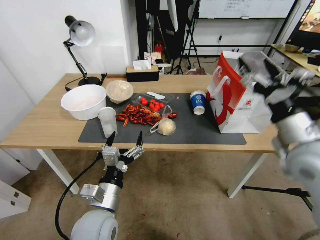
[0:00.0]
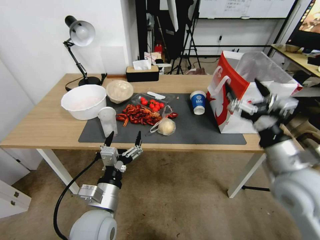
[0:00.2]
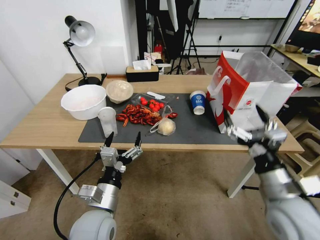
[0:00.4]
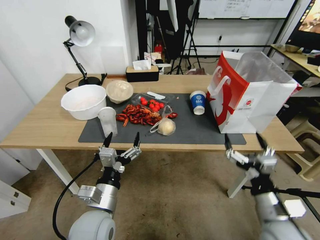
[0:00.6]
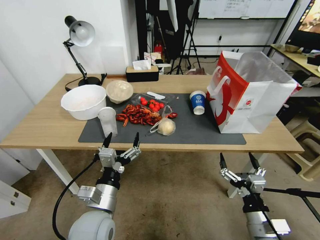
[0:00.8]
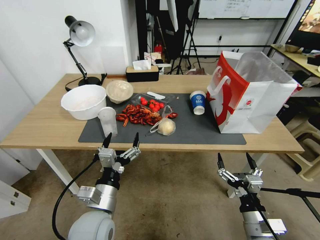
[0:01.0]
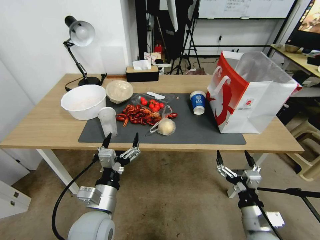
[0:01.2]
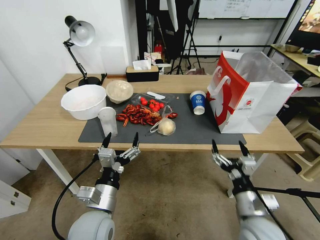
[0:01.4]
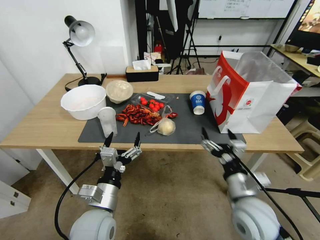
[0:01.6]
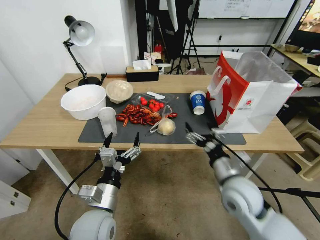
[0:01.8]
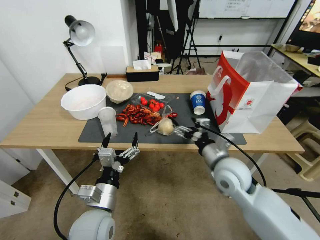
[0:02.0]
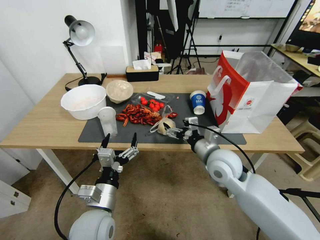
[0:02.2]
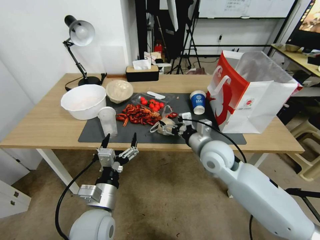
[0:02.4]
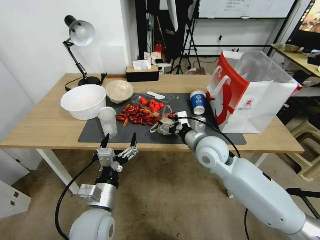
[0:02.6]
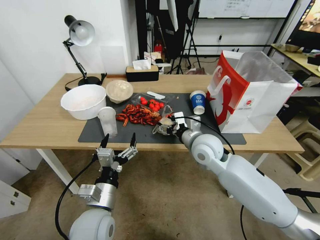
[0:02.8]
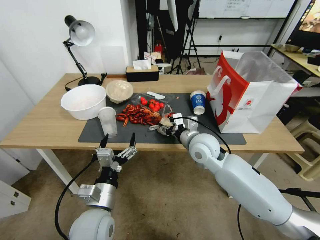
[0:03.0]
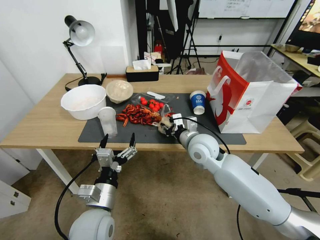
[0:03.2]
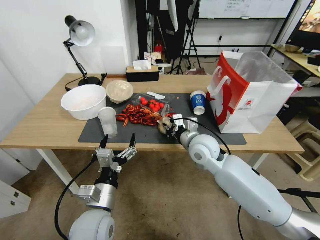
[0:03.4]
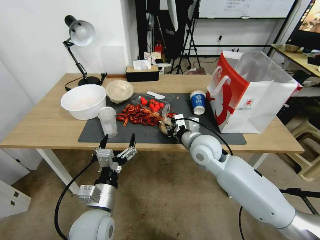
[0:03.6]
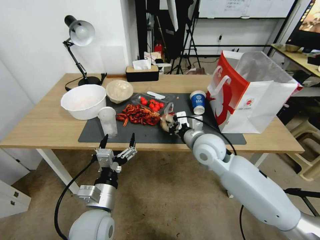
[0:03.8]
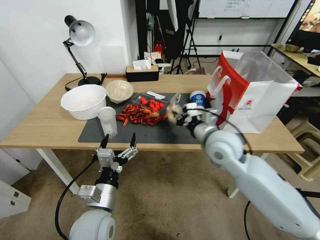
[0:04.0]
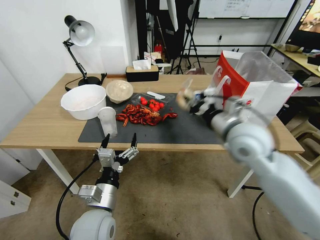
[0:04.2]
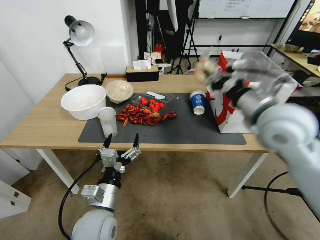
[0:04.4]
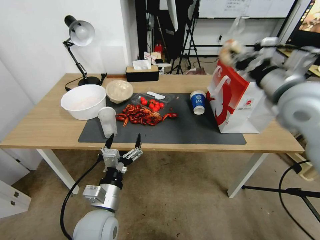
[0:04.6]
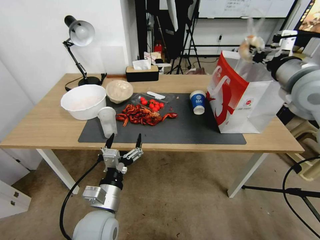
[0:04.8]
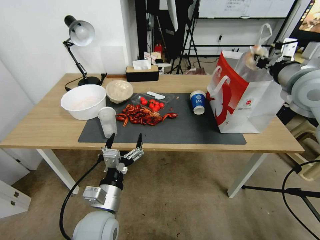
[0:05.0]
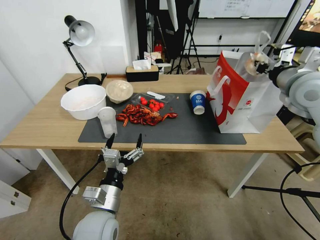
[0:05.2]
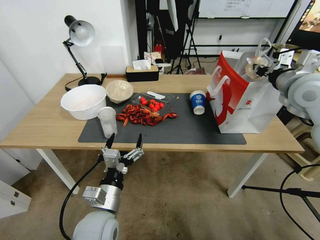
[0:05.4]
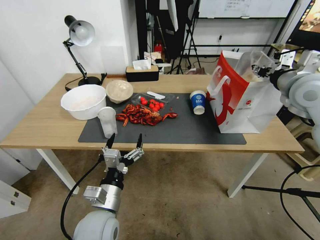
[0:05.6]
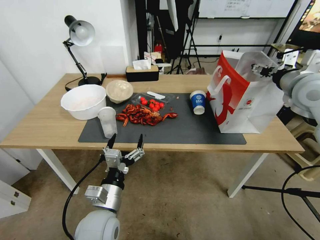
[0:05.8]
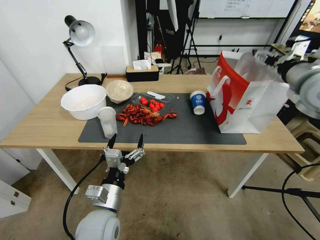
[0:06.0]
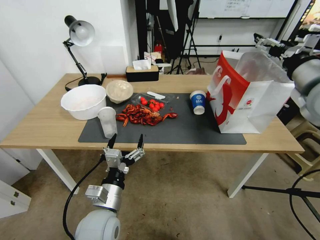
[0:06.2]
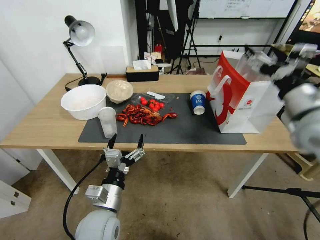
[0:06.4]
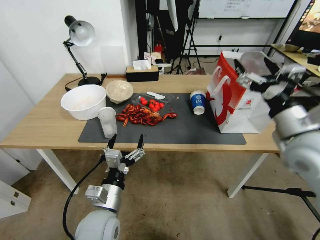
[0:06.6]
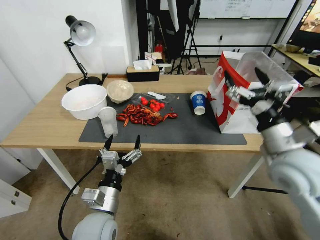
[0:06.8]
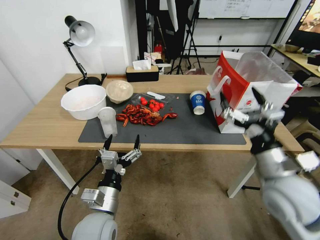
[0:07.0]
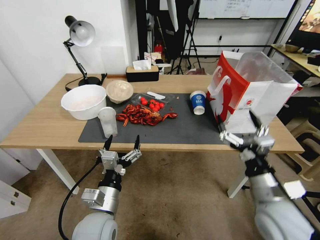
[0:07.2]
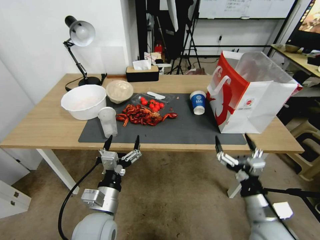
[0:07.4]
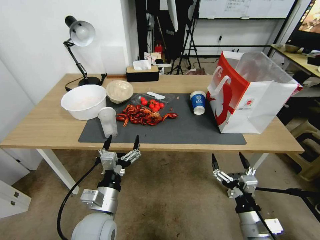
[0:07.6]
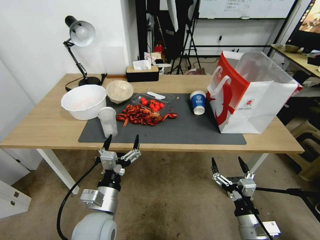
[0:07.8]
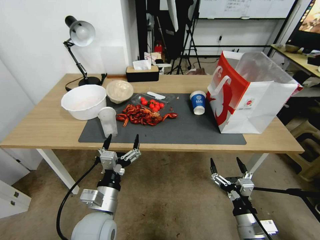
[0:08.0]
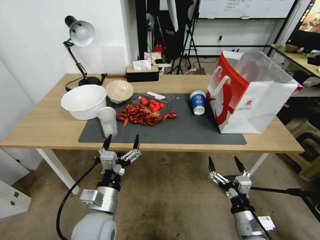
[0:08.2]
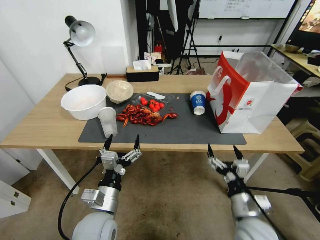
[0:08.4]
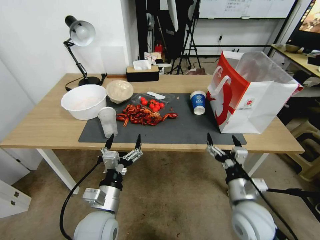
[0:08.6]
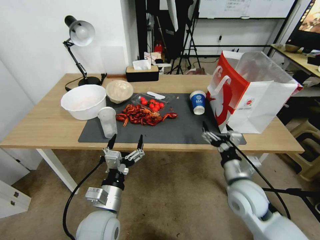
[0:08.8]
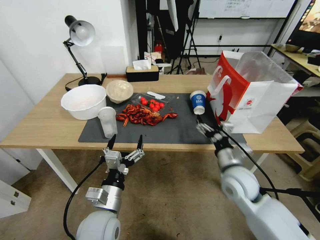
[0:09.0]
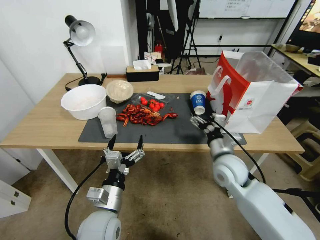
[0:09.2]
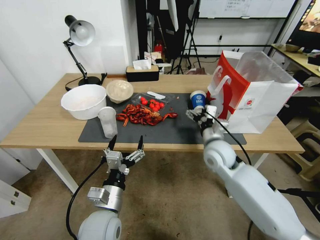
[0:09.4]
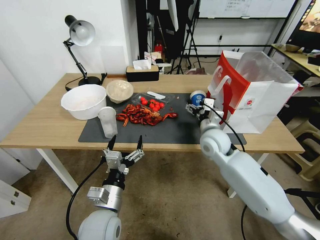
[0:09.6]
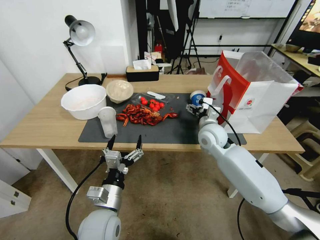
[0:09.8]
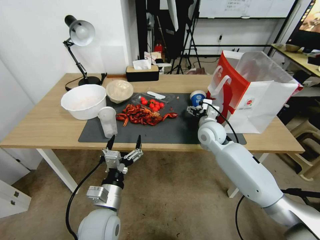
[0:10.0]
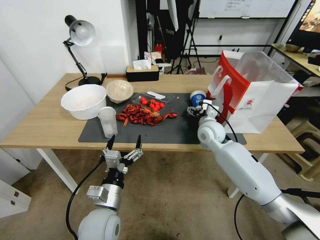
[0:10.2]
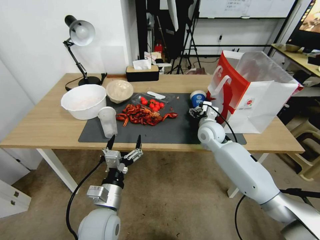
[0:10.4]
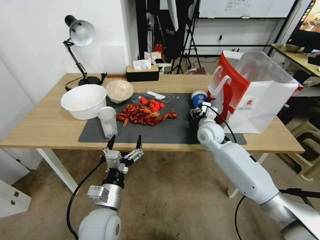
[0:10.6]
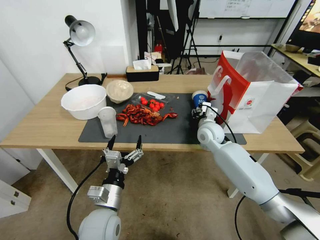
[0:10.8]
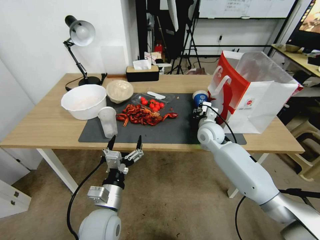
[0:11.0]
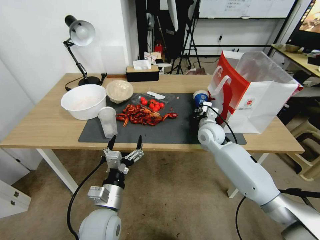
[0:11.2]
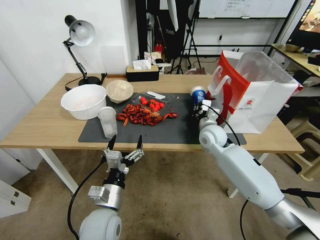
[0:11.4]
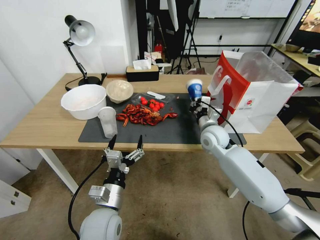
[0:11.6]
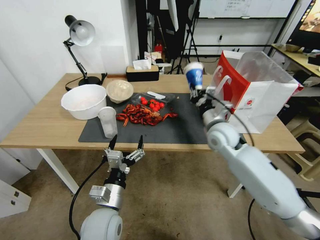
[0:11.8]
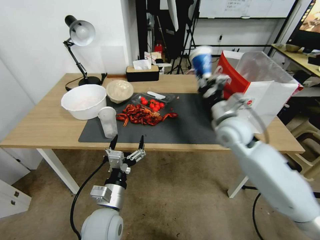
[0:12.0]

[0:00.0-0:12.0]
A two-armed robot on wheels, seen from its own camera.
0:00.0 to 0:01.6: The right gripper heads downward and to the left, covering some 20 cm.
0:01.6 to 0:03.0: The right gripper moves forward and to the left, some 20 cm, and closes up.
0:03.0 to 0:04.4: The right gripper shifts roughly 20 cm upward and to the right, and closes its fingers.
0:04.4 to 0:06.0: The right gripper travels to the right and forward by approximately 15 cm, and opens up.
0:06.0 to 0:07.6: The right gripper travels downward and backward by roughly 40 cm.
0:07.6 to 0:09.0: The right gripper moves forward and upward, about 15 cm.
0:09.0 to 0:10.4: The right gripper moves forward, some 20 cm.
0:10.4 to 0:12.0: The right gripper goes roughly 10 cm upward and backward, and closes.

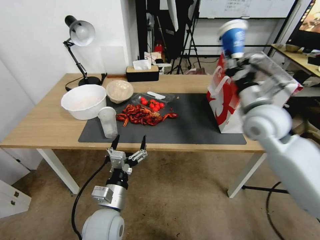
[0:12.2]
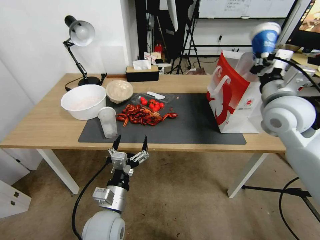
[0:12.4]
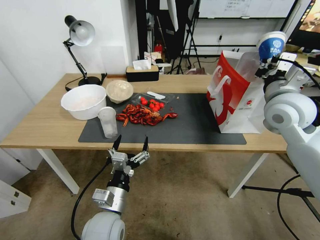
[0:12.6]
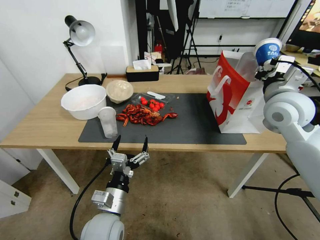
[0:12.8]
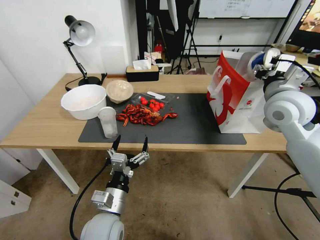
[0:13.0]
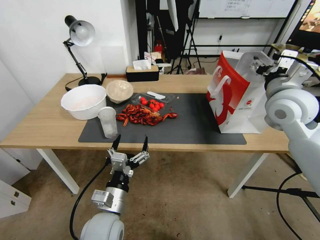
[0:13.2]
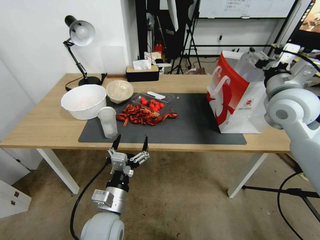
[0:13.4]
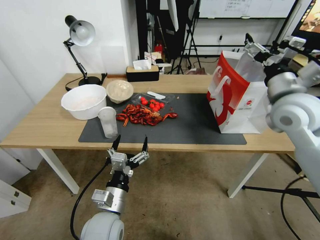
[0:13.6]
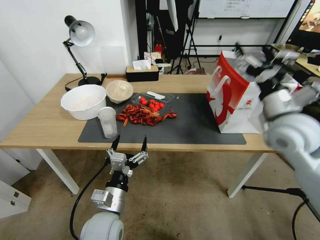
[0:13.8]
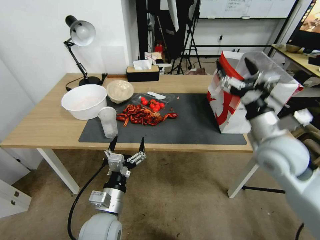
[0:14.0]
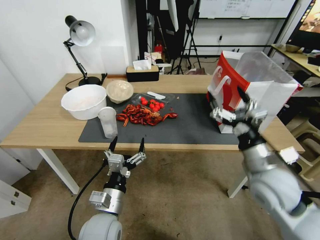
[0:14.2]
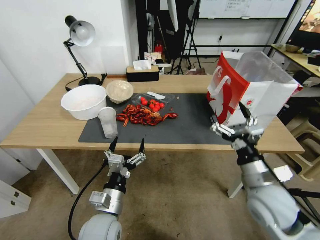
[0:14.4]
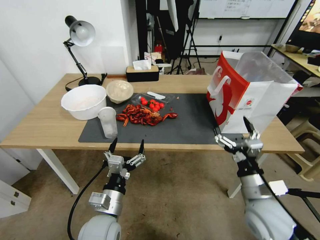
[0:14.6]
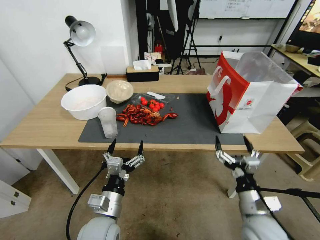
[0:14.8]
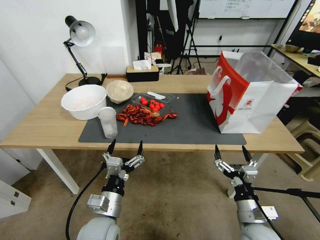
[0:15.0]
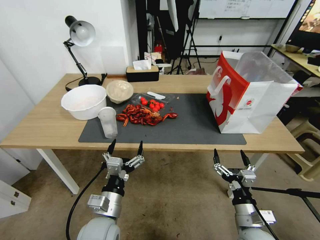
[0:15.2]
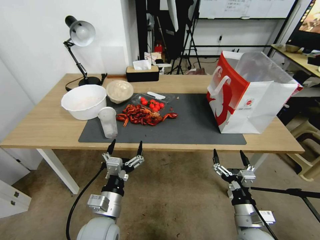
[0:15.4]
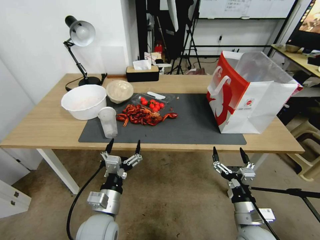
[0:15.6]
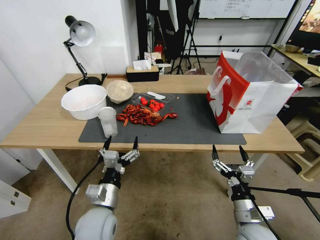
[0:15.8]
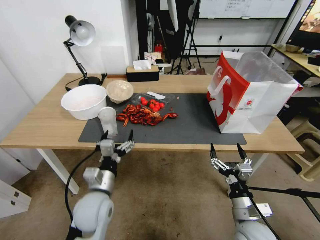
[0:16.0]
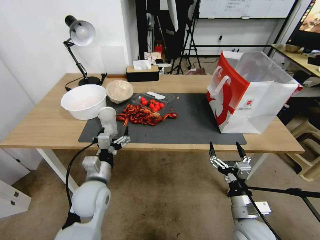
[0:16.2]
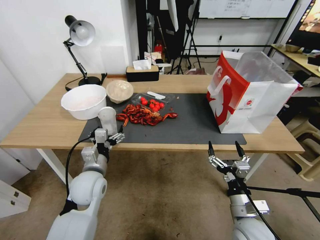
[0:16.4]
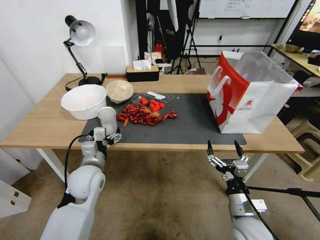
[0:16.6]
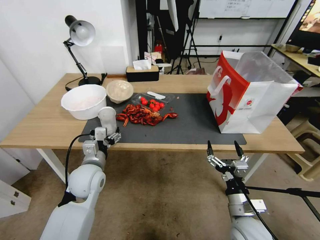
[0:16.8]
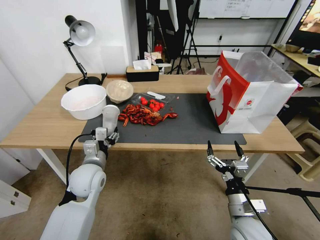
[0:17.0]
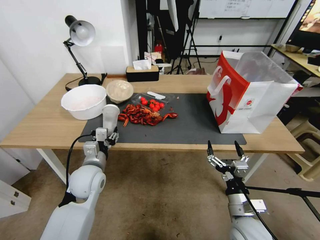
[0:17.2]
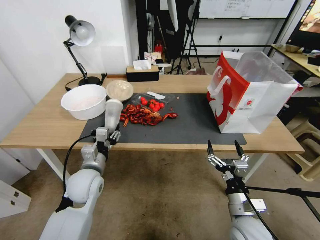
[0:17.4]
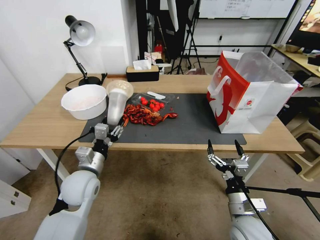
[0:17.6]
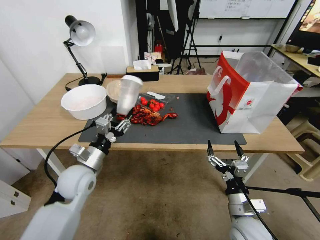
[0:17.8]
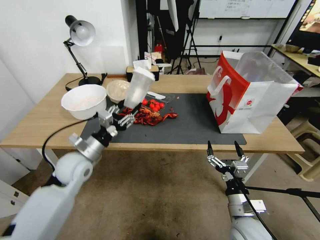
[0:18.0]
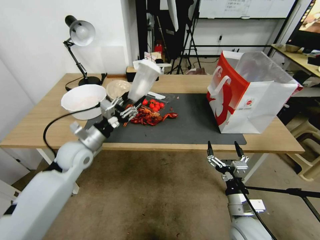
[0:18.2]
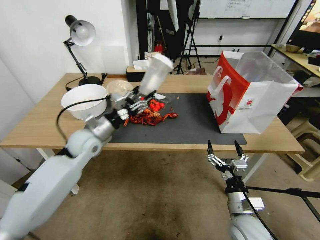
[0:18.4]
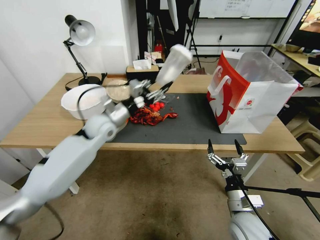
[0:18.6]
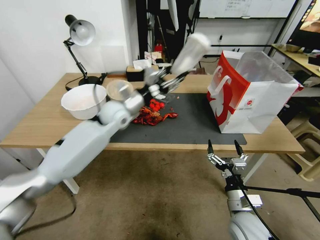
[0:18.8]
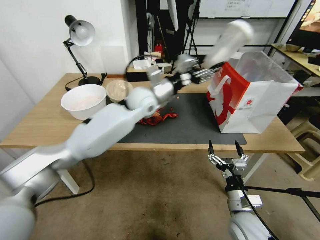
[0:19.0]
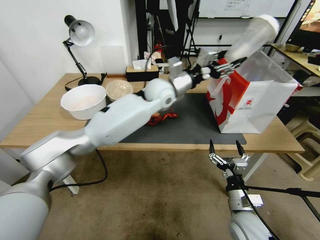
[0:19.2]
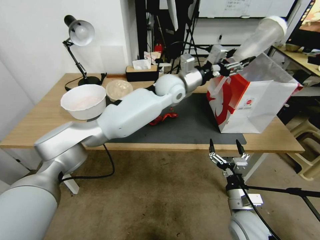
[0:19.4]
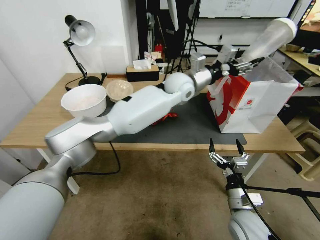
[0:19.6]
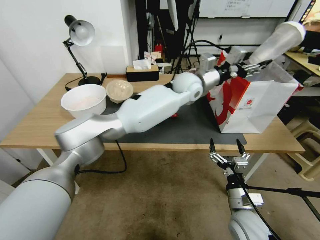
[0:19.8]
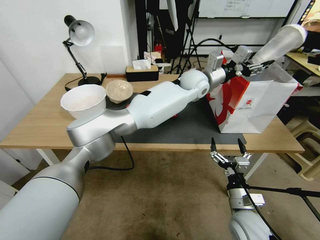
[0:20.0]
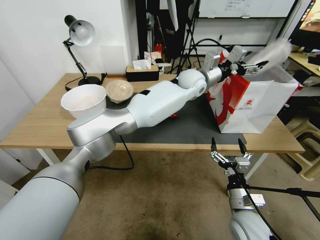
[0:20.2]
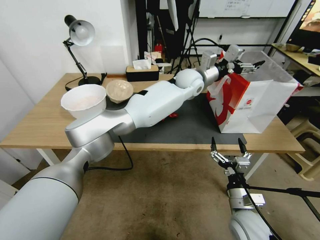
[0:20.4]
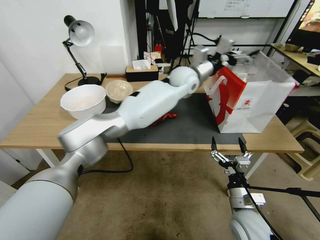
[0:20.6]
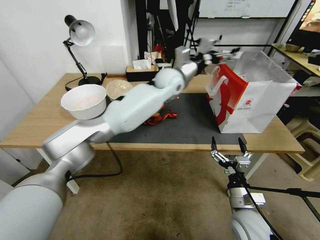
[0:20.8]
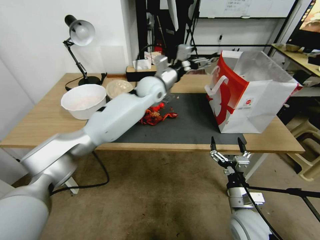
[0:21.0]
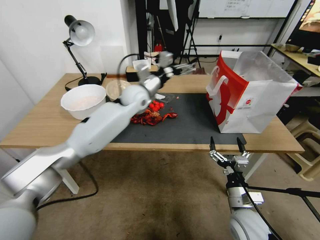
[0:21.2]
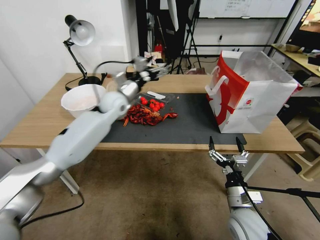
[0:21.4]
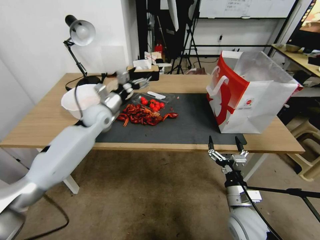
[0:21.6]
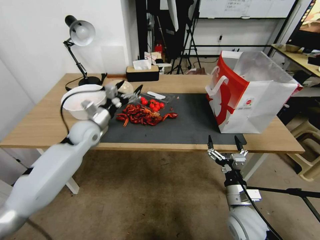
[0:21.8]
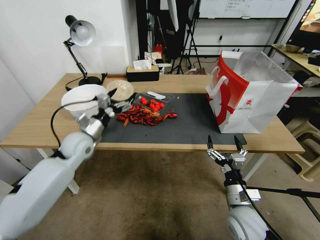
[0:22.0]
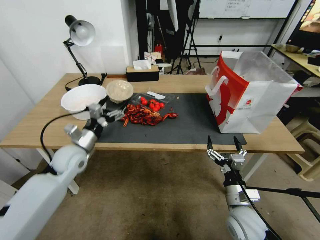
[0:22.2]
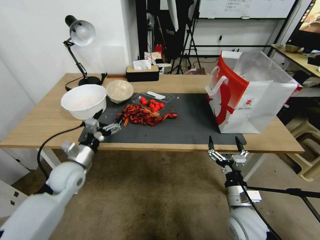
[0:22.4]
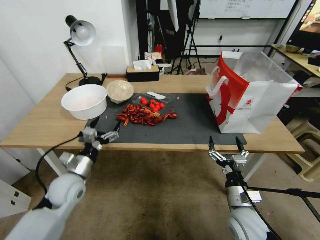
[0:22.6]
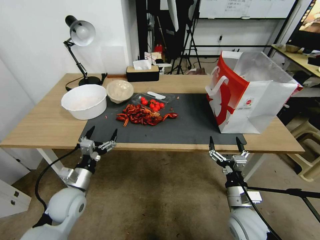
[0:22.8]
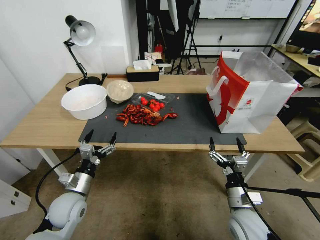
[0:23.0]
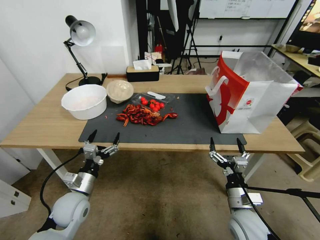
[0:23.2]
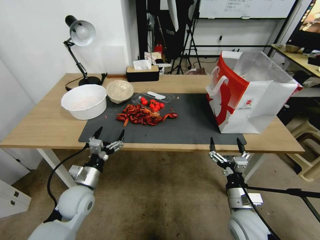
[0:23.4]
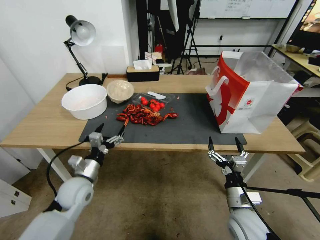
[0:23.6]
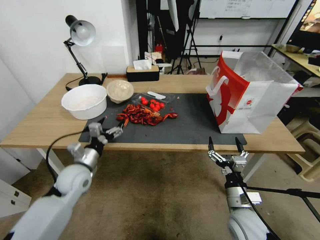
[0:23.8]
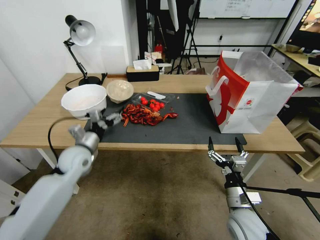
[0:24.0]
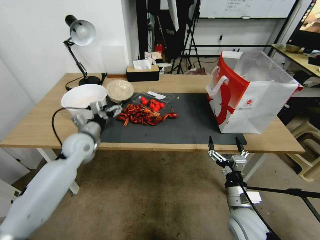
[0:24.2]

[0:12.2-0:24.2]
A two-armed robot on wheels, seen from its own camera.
0:12.2 to 0:13.8: The right gripper ends up approximately 5 cm from where it was, and opens.
0:13.8 to 0:15.2: The right gripper travels downward and backward by roughly 30 cm.
0:15.2 to 0:16.6: The left gripper shifts some 15 cm forward and to the left.
0:16.6 to 0:18.2: The left gripper moves forward, roughly 5 cm, and closes.
0:18.2 to 0:19.8: The left gripper heads to the right and forward, covering roughly 40 cm.
0:19.8 to 0:21.2: The left gripper heads to the left, covering about 20 cm, and opens its fingers.
0:21.2 to 0:22.6: The left gripper goes approximately 35 cm backward, to the left and downward.
0:22.6 to 0:24.2: The left gripper shifts some 15 cm forward and upward.
